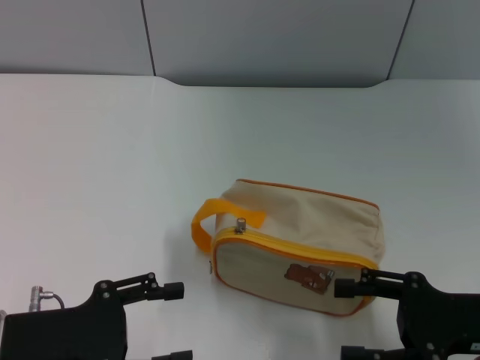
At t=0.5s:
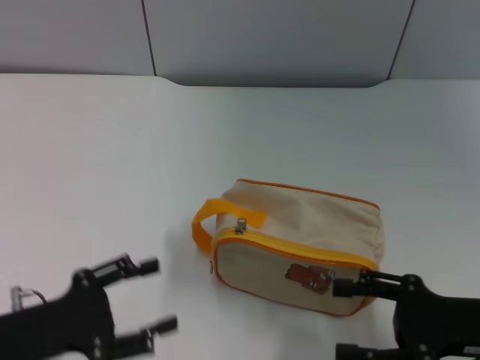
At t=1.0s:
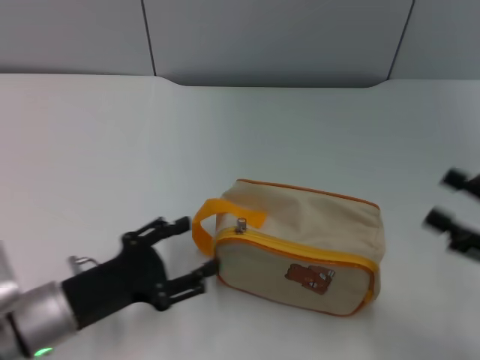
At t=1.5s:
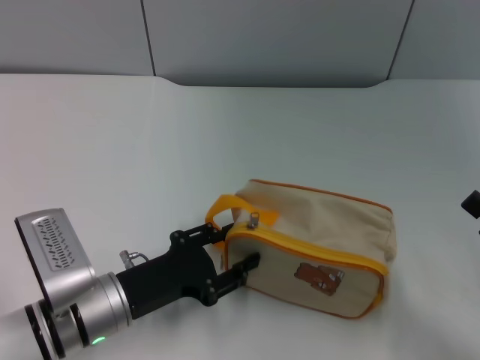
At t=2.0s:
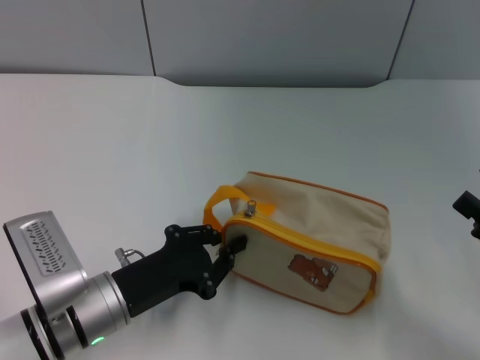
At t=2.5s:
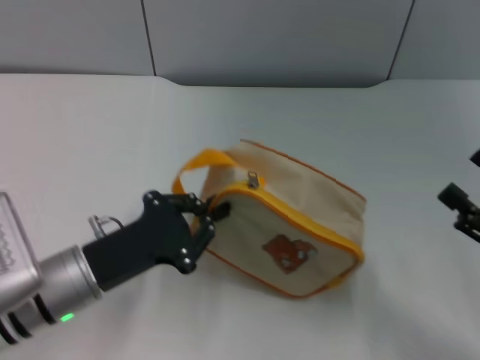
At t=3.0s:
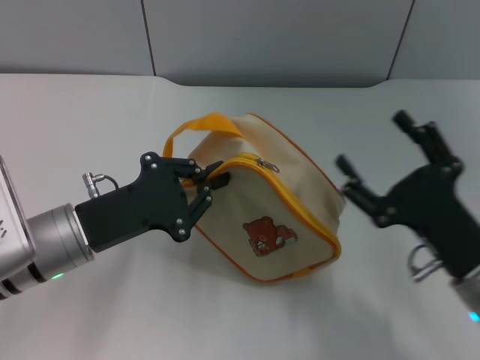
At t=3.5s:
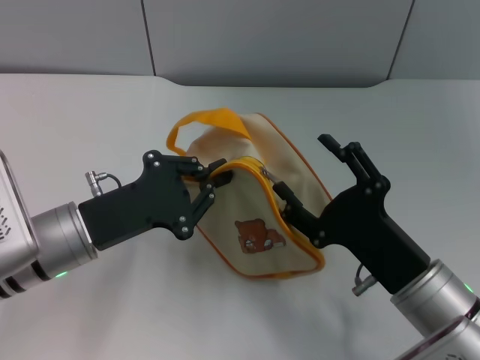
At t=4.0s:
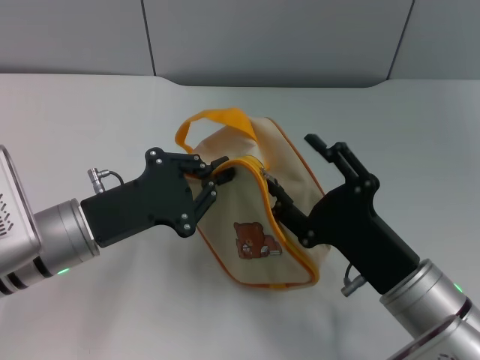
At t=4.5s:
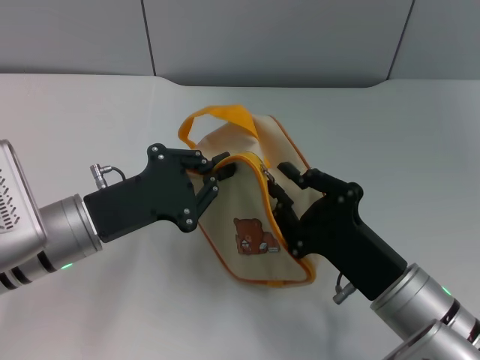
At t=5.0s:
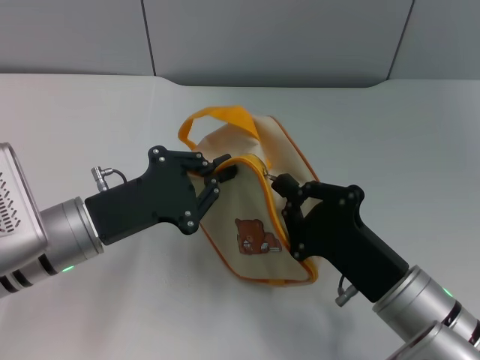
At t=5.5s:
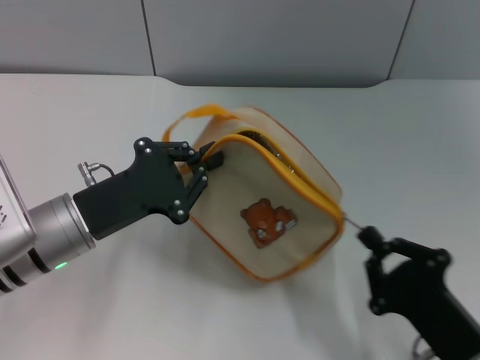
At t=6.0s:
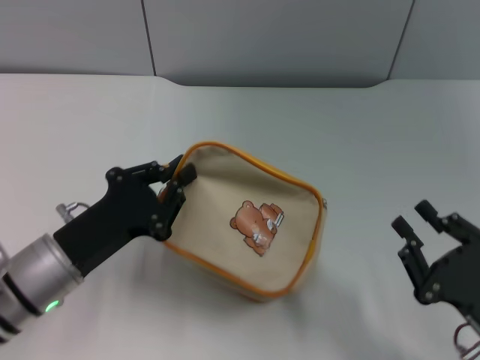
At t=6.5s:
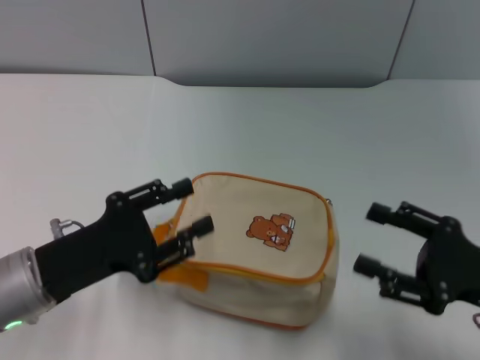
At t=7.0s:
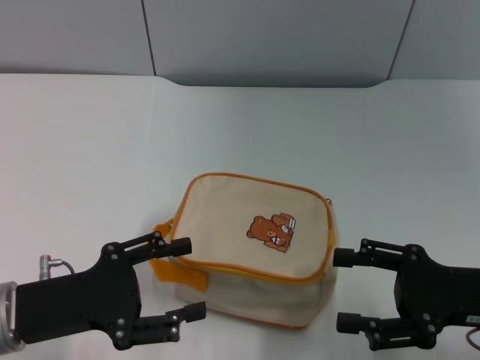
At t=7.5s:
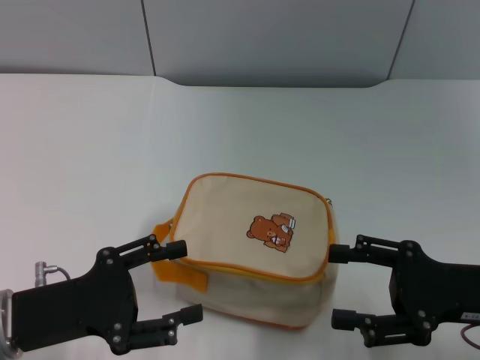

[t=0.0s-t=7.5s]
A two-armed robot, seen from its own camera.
Step, t=0.0s to t=2.0s: Pick up the bag with left gripper.
Step, t=3.0s to t=5.5s: Unzip the zipper of bag with right gripper.
t=0.0s to t=2.0s: The left gripper heads to the right and downward, covering approximately 10 cm, and closes up. Meanwhile the right gripper is displaced to the right by some 5 cm.
t=2.0s to t=4.0s: The left gripper goes roughly 5 cm upward. The right gripper goes some 20 cm to the left.
t=4.0s to t=5.5s: The right gripper is displaced backward and to the right by about 10 cm, and closes.
t=5.5s to t=7.5s: The left gripper travels backward by roughly 5 cm, and opens up. The right gripper shifts about 10 cm forward, upward and to the right, and opens up.

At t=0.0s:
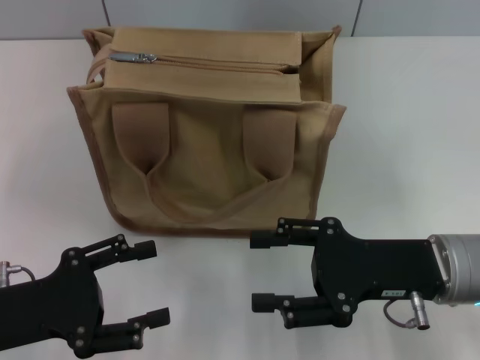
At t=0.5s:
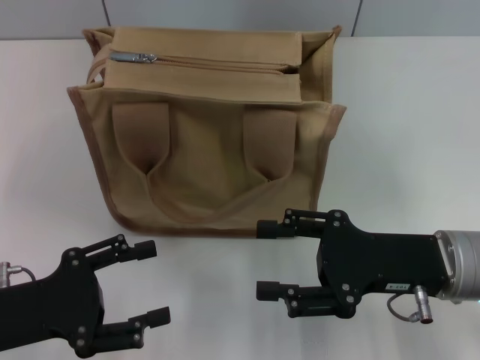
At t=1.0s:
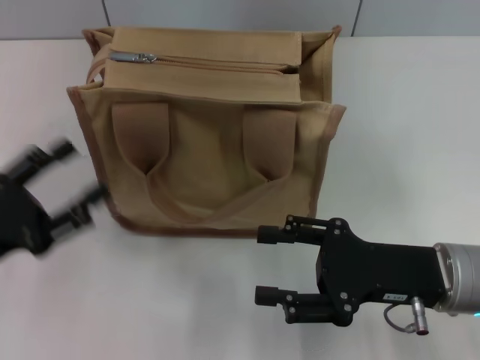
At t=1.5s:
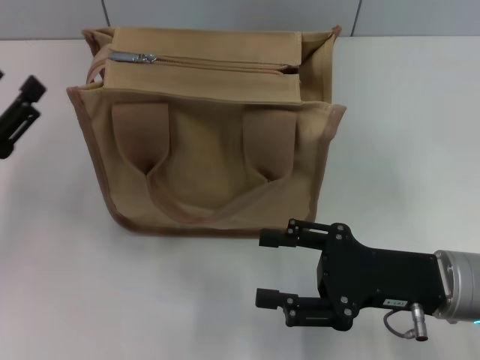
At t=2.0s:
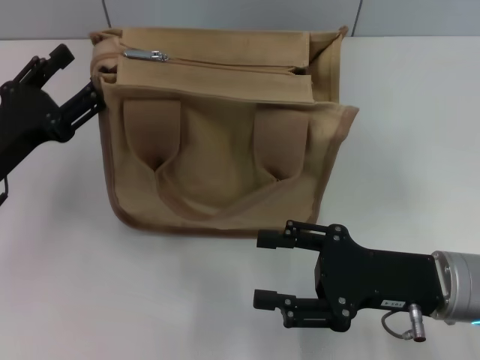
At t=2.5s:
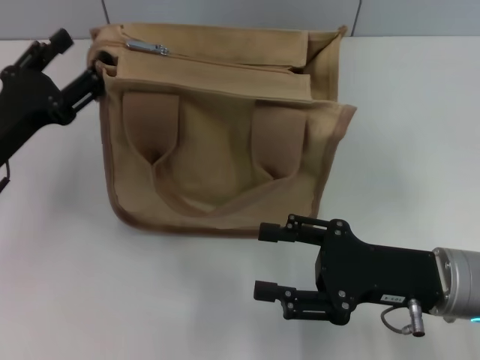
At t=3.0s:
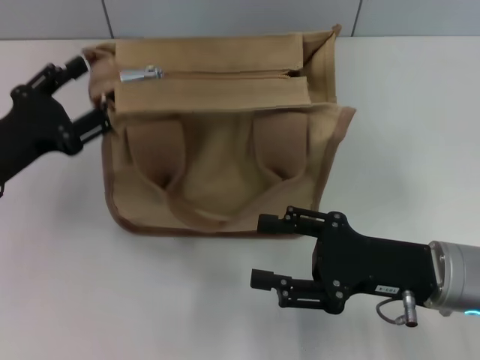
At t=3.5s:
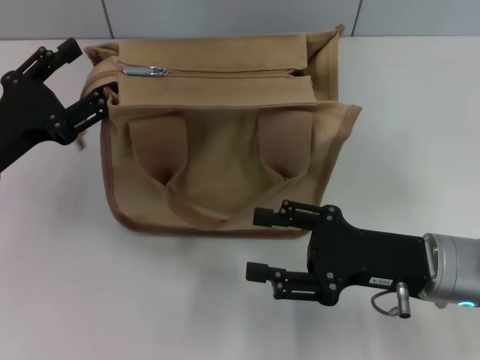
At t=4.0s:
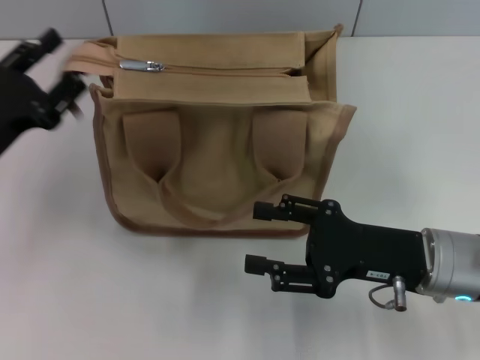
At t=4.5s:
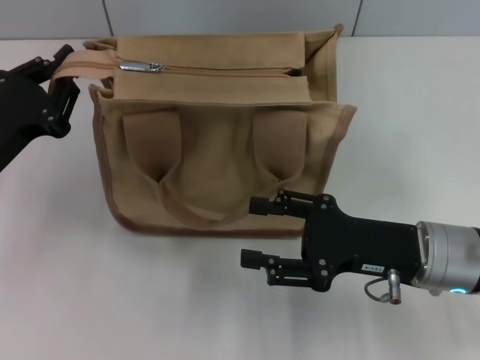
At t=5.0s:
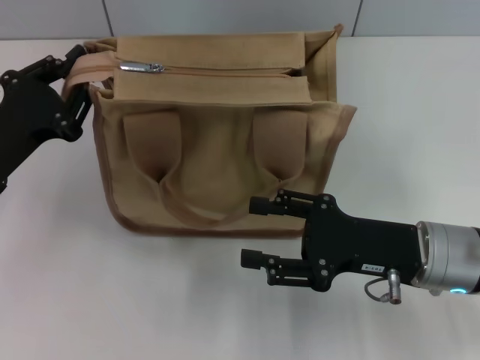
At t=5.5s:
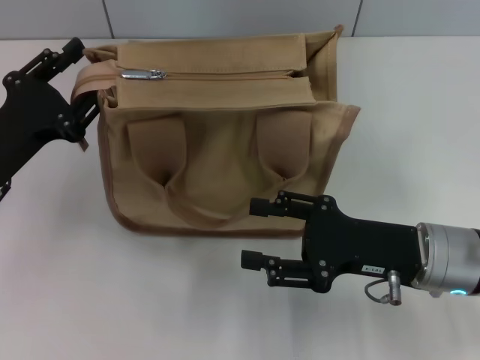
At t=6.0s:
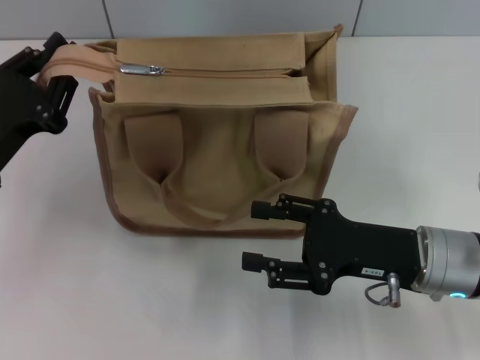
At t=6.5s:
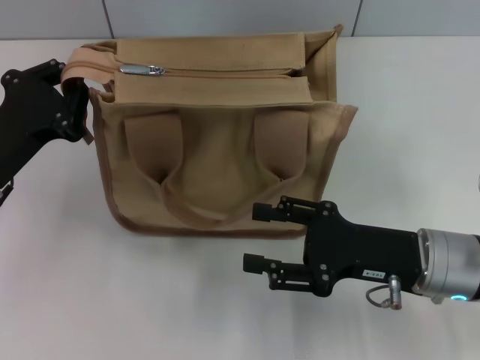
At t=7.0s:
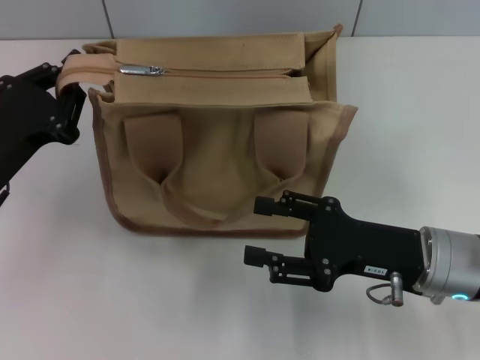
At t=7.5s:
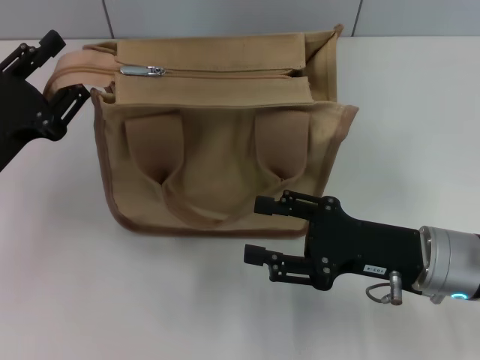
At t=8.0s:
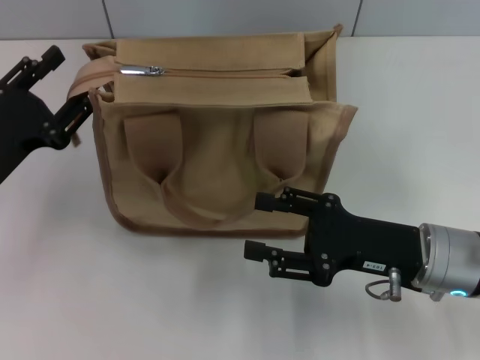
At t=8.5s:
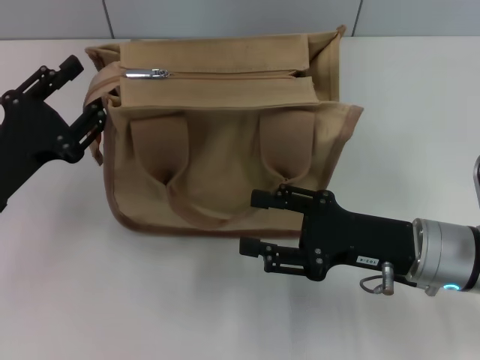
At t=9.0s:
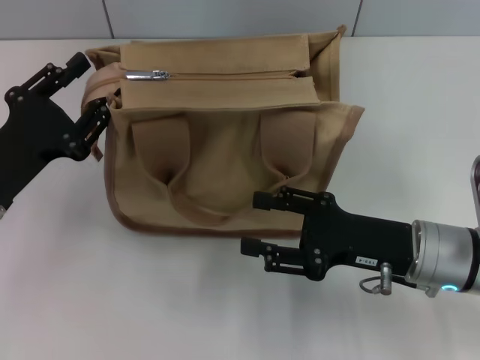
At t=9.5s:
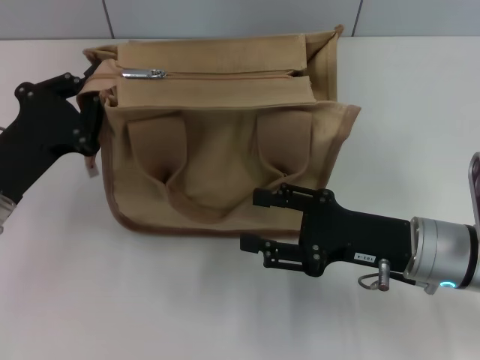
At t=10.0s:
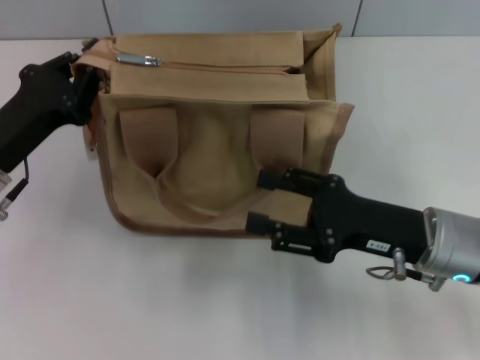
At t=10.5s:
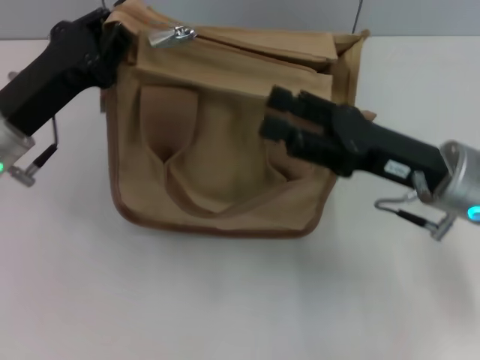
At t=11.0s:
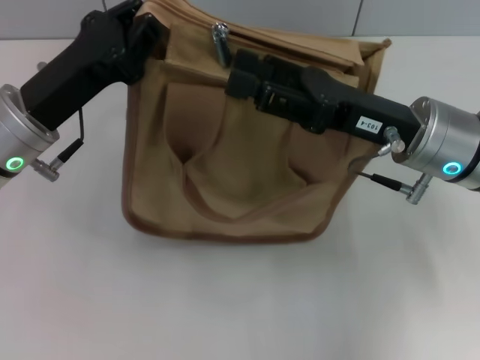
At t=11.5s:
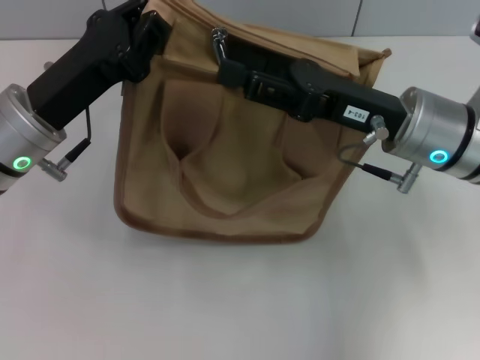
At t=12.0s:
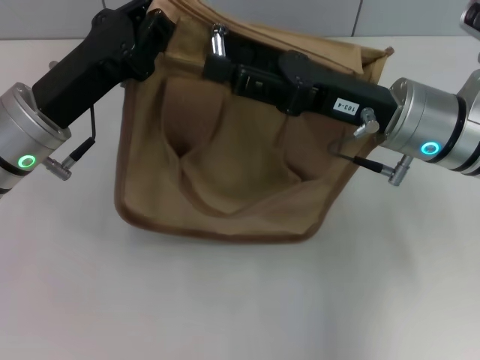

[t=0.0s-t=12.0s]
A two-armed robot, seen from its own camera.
t=0.0s to t=2.0s: The left gripper is displaced forward by about 10 cm.
t=2.0s to t=4.0s: The grippers make only small movements.
t=4.0s to t=6.0s: The left gripper closes up.
t=6.0s to t=8.0s: The left gripper closes, then reopens.
t=8.0s to t=10.0s: The left gripper closes its fingers.
t=10.0s to t=12.0s: The left gripper travels to the right by about 5 cm, while the right gripper heads forward and upward, covering some 10 cm.

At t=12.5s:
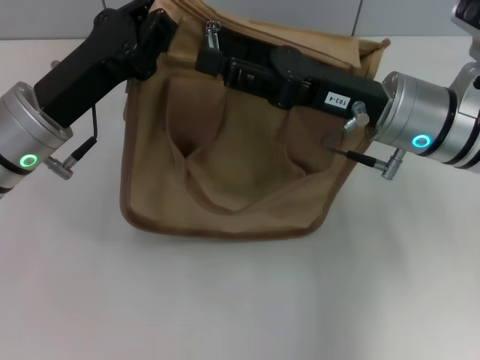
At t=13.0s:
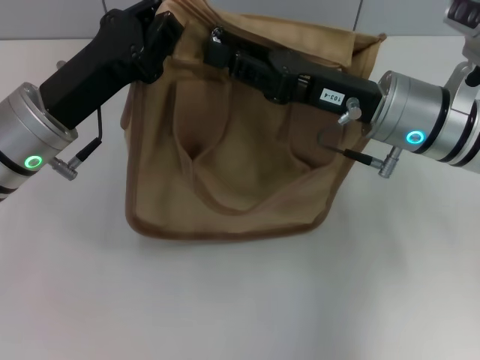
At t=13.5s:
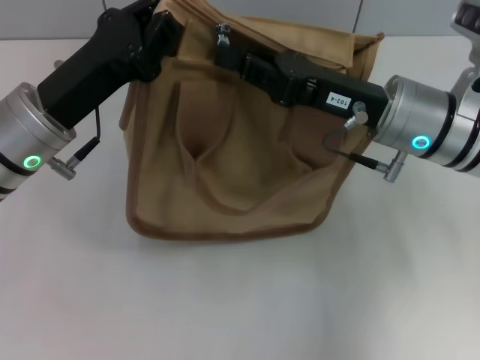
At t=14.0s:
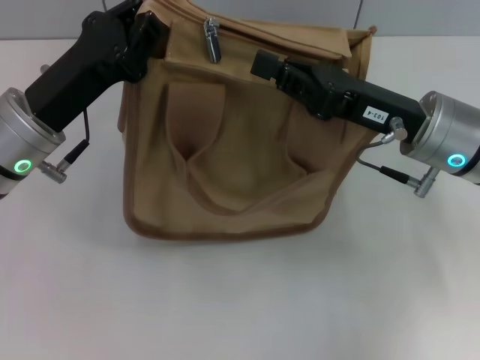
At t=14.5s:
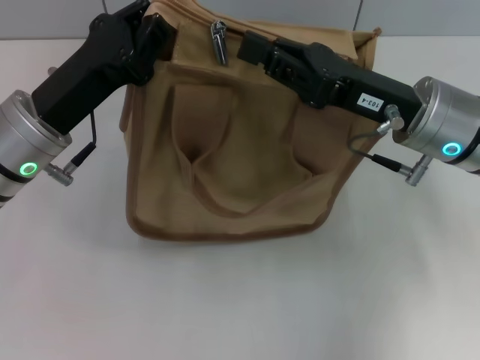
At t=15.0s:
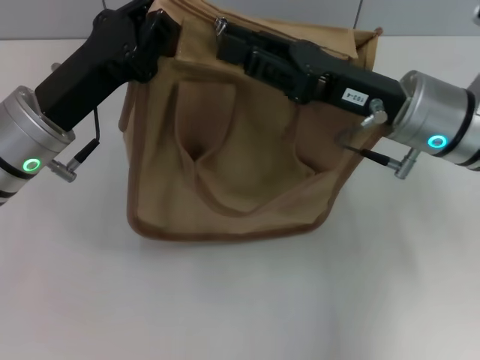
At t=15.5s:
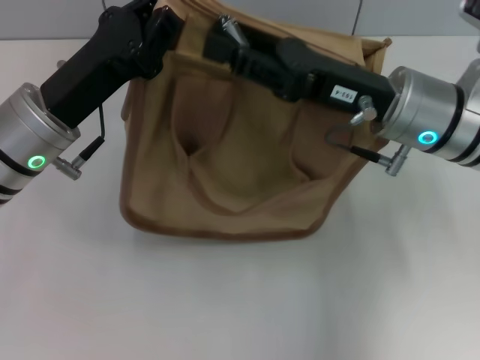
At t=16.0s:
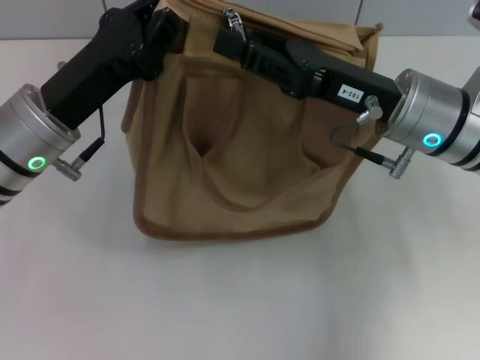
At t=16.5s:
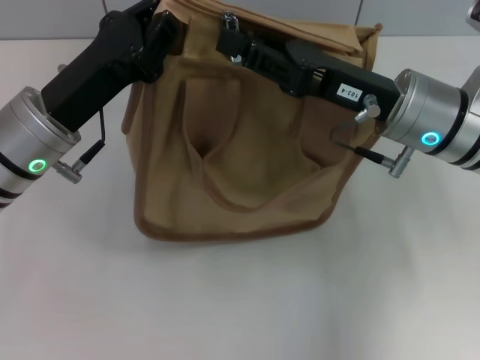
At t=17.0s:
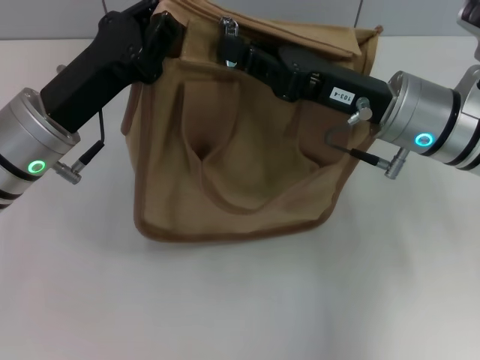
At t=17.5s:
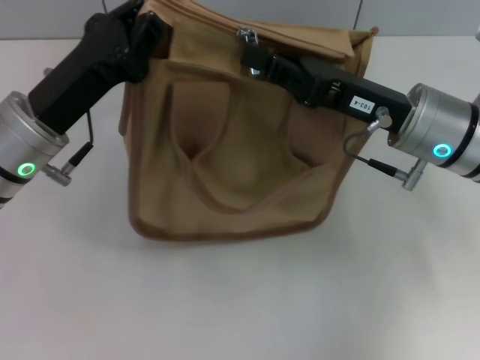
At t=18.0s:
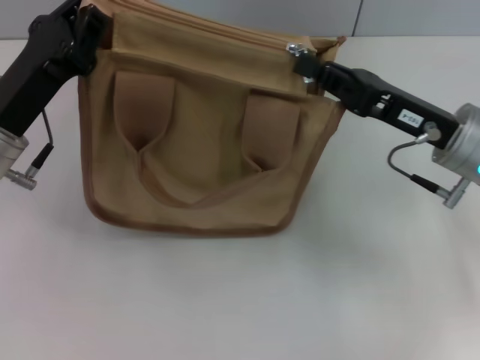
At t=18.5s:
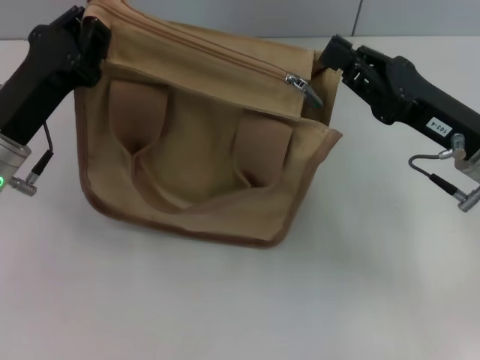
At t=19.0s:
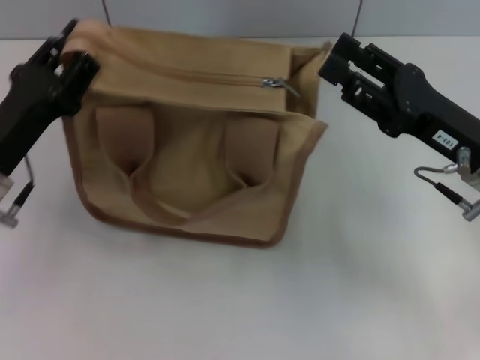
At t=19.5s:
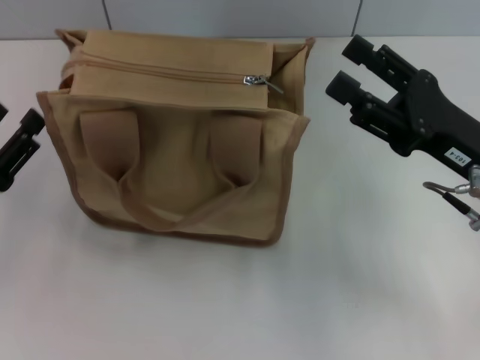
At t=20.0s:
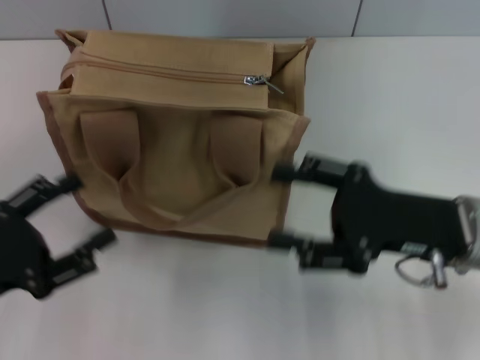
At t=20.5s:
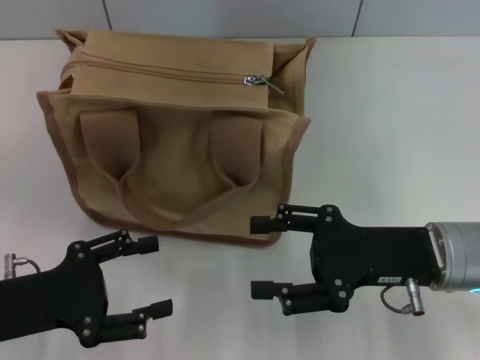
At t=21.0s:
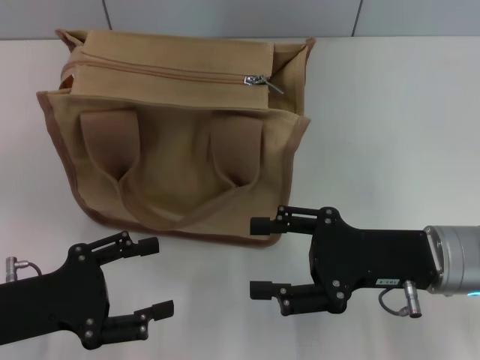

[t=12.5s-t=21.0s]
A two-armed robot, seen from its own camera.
Step, t=12.5s to t=18.0s: Pull up the zipper with your right hand.
Step, t=18.5s to t=19.0s: Grab the zipper with your left hand.
t=12.5s to t=14.5s: The right gripper closes its fingers.
t=14.5s to t=16.5s: There are only small adjustments of the grippers.
t=16.5s to t=19.0s: The right gripper heads to the right, covering about 5 cm. Meanwhile the left gripper heads to the left, covering roughly 5 cm.
t=19.0s to t=21.0s: The right gripper ends up approximately 5 cm from where it was, and opens its fingers, while the left gripper heads backward, covering approximately 10 cm, and opens.
